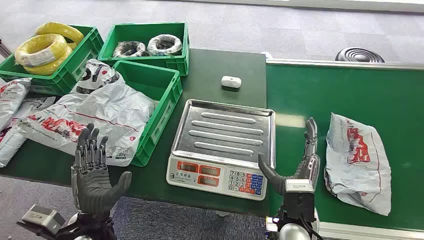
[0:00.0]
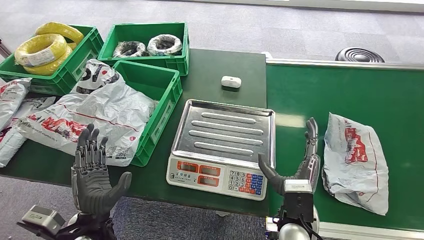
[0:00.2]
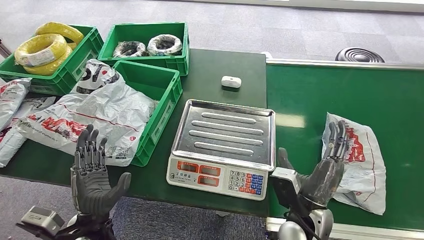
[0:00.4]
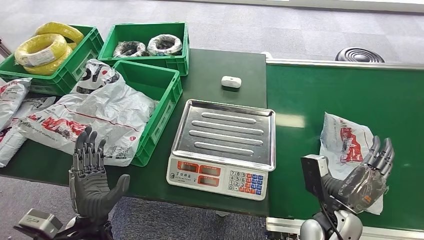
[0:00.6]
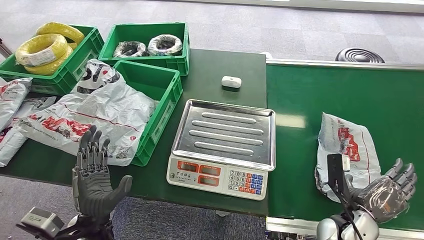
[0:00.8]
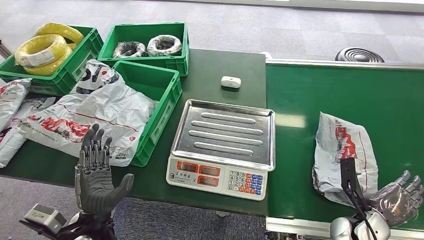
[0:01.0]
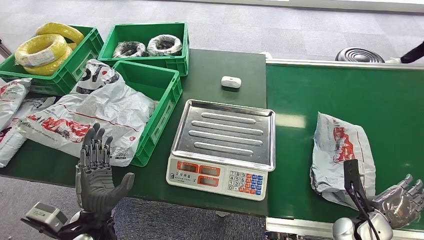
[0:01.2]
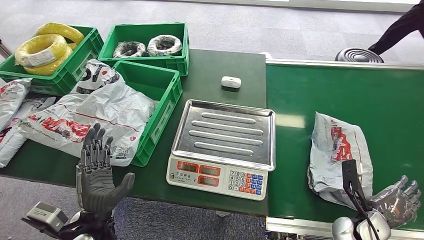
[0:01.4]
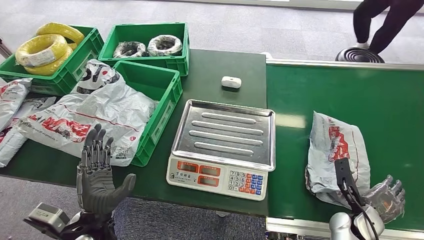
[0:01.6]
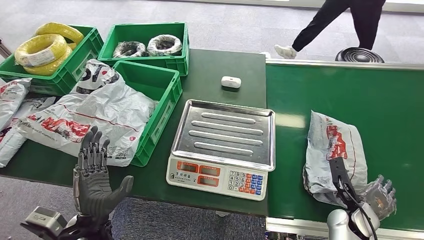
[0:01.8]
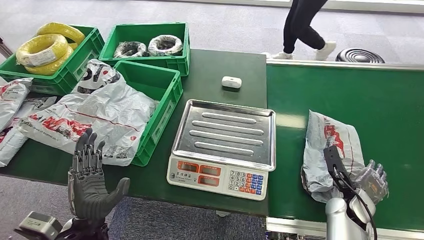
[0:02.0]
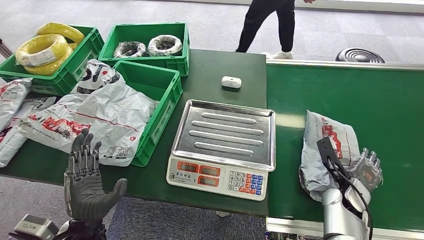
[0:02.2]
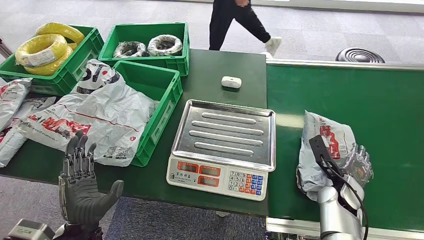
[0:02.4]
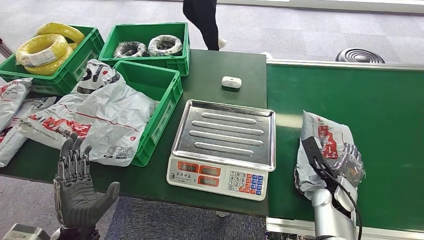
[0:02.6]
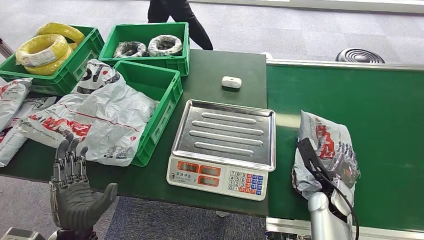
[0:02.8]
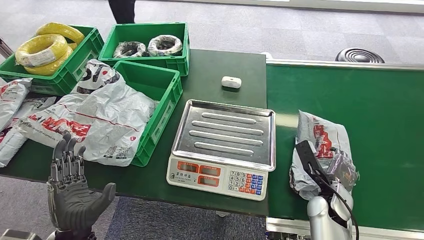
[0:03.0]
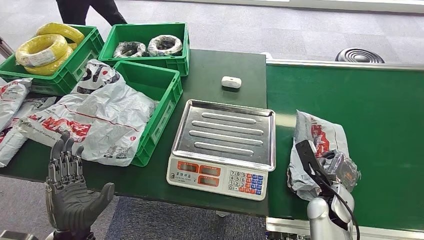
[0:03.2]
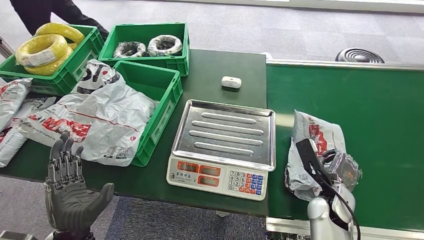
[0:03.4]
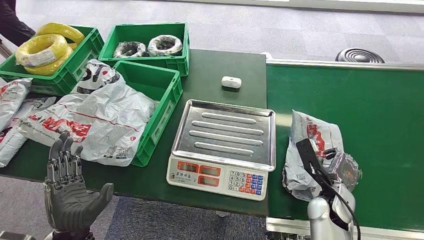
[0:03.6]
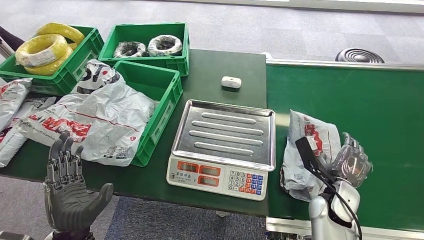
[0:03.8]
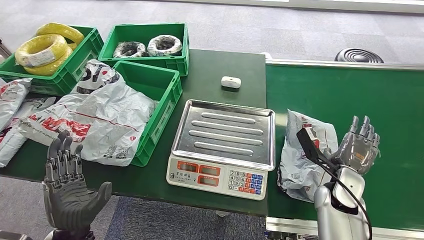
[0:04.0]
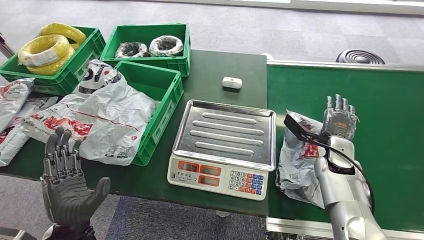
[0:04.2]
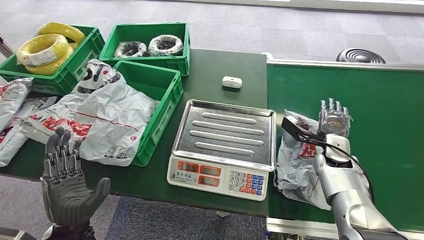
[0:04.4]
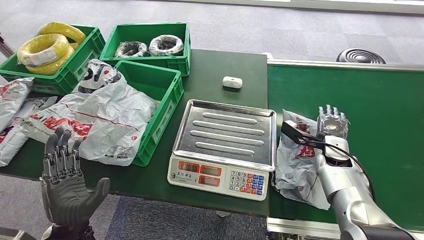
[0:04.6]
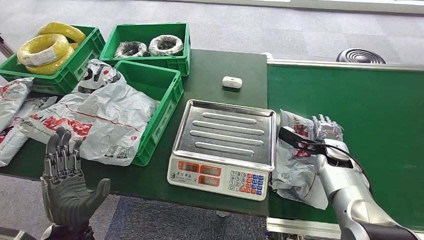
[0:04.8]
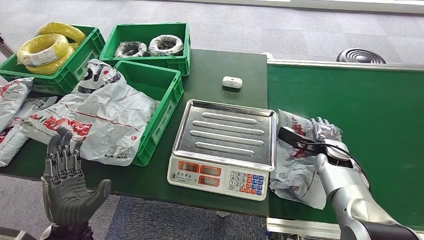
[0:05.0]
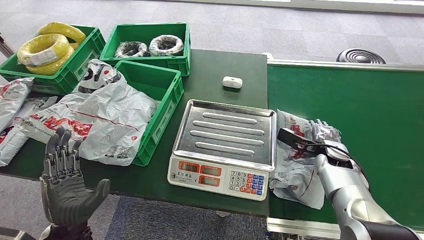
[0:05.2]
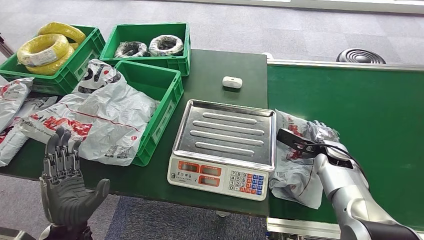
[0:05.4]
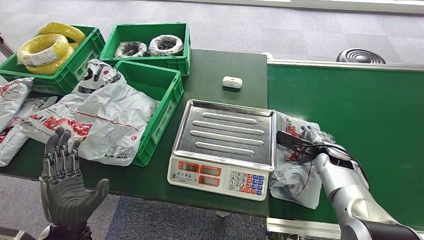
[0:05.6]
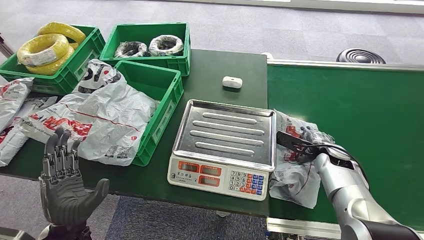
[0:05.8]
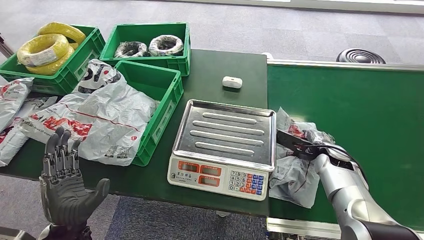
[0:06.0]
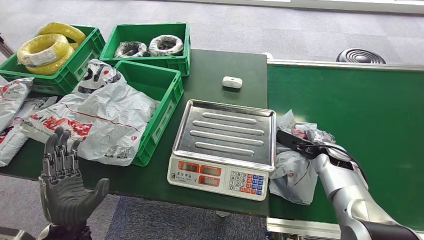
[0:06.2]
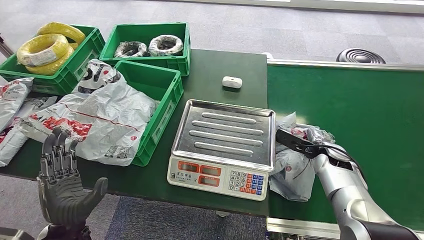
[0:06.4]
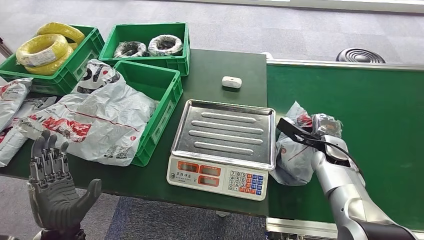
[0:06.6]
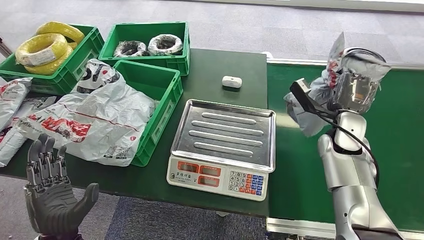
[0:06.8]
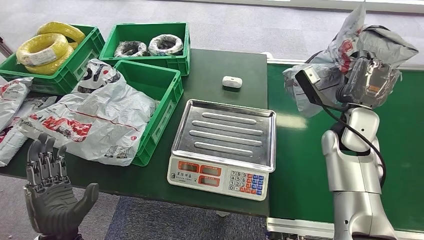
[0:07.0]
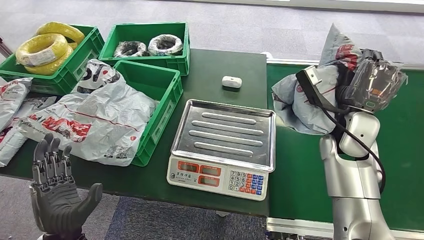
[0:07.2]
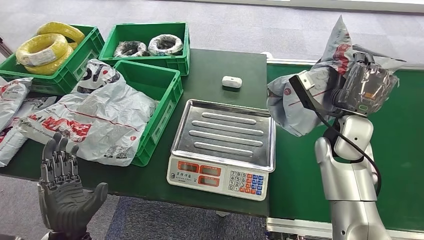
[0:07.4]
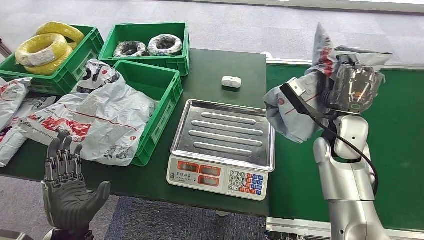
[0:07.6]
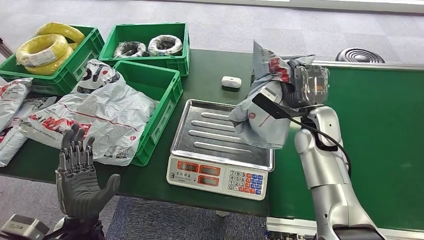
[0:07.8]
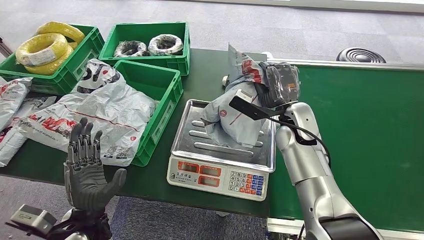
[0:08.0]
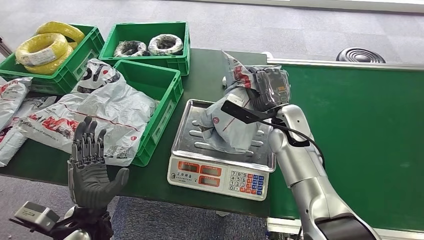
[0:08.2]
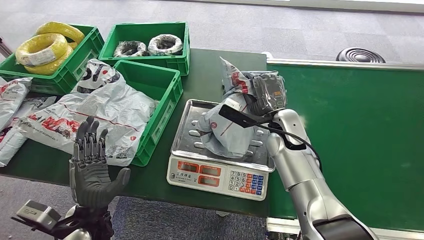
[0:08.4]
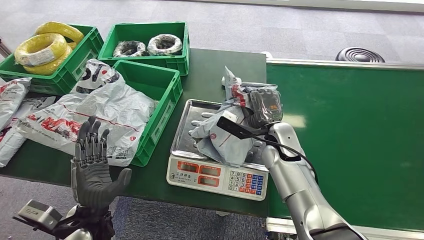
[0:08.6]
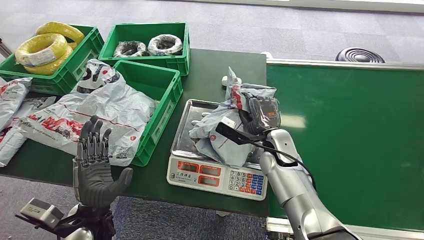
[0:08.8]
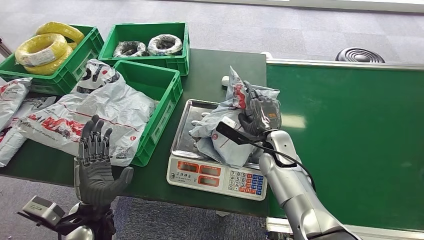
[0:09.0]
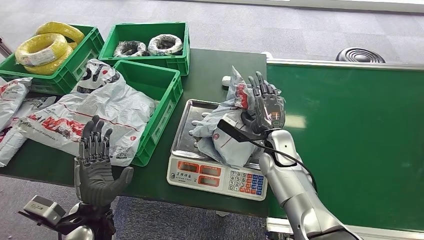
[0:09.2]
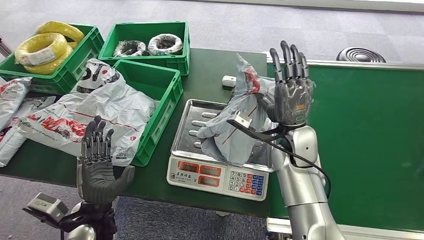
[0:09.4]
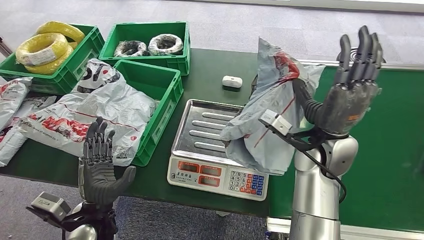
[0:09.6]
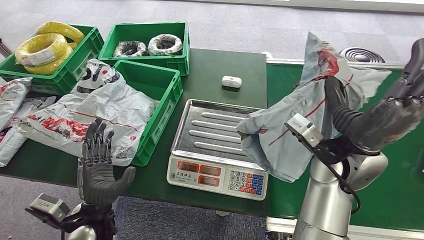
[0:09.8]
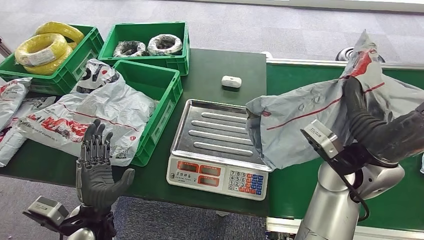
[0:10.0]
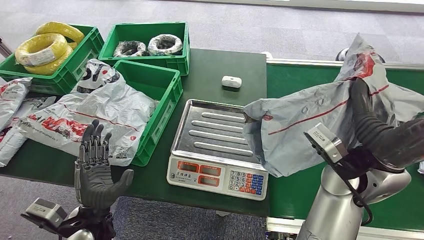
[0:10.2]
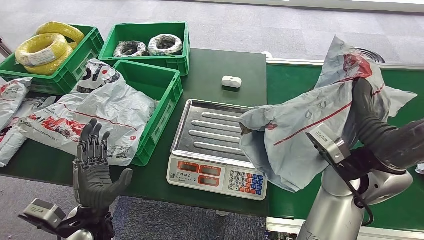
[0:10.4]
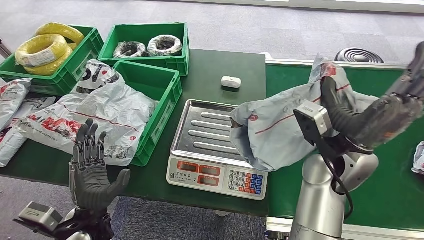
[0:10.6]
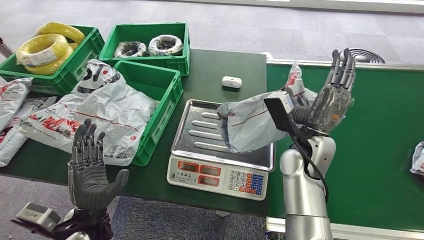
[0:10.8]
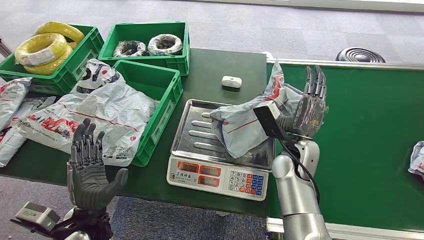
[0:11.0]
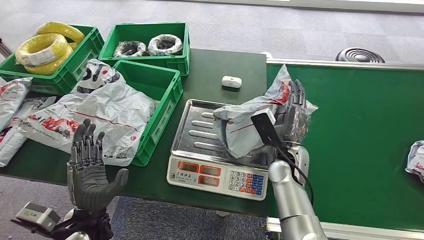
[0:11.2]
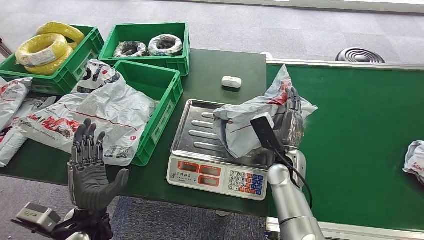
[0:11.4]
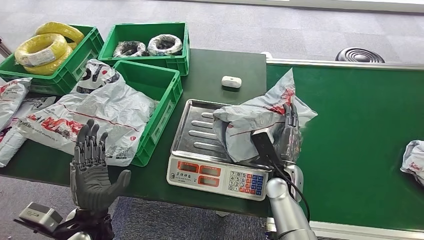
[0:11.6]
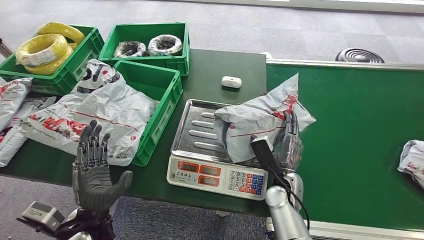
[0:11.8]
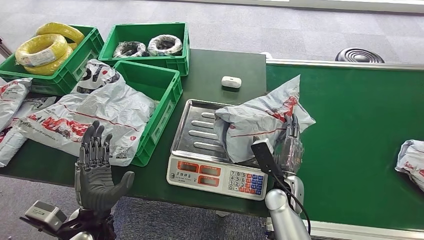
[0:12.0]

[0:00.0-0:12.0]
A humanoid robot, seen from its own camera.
Step, 0:00.0 to 0:06.8: Pick up the package from the conveyor belt.
0:01.6 to 0:03.0: The right hand moves to the left, roughly 5 cm.
0:03.0 to 0:04.4: The right hand is displaced forward and upward by some 10 cm.

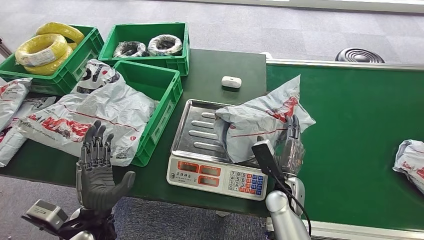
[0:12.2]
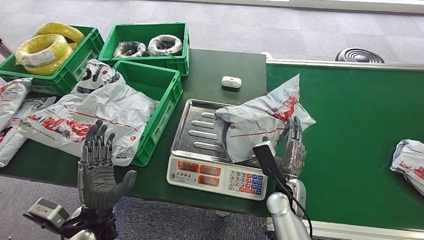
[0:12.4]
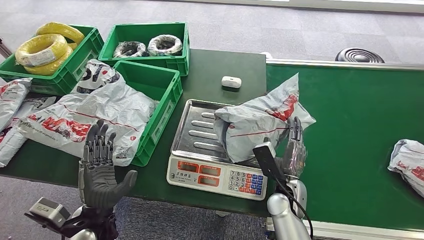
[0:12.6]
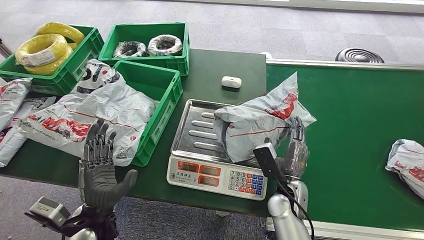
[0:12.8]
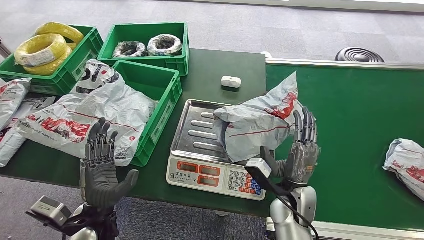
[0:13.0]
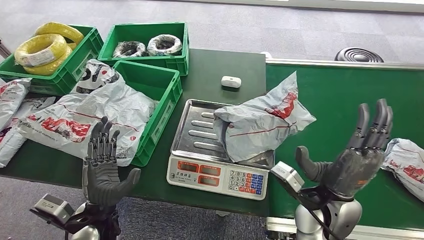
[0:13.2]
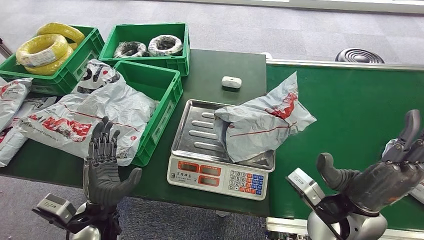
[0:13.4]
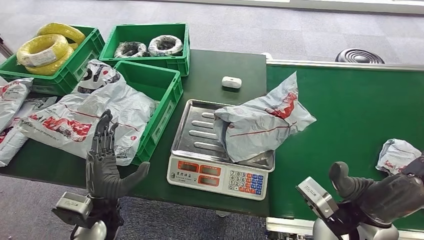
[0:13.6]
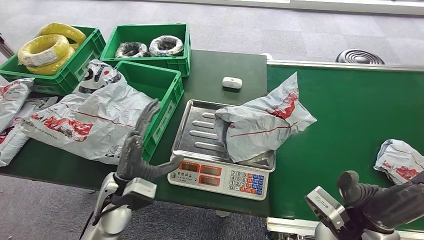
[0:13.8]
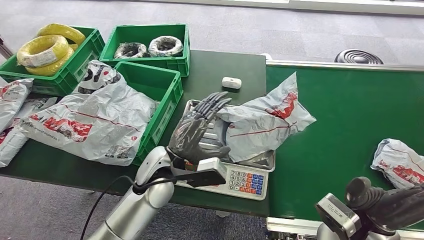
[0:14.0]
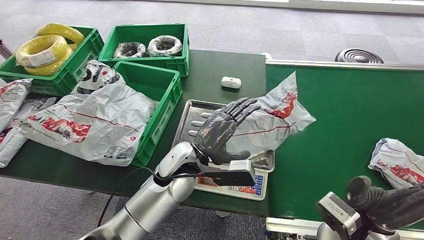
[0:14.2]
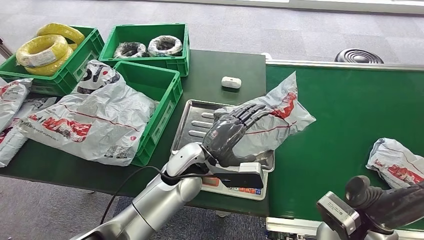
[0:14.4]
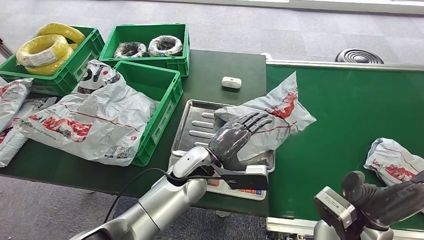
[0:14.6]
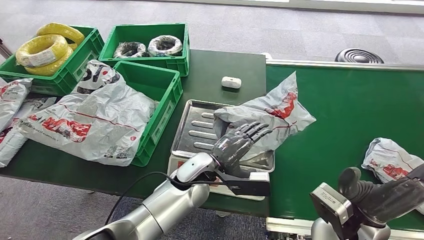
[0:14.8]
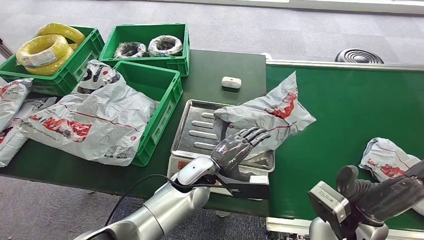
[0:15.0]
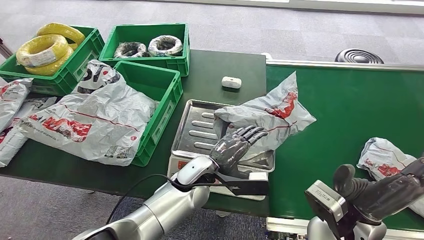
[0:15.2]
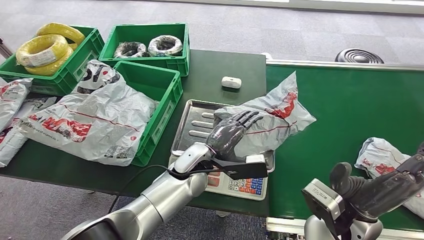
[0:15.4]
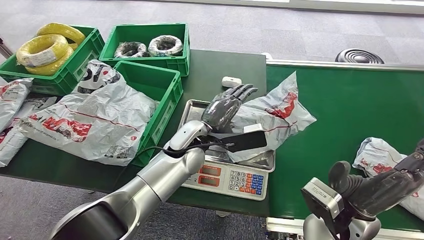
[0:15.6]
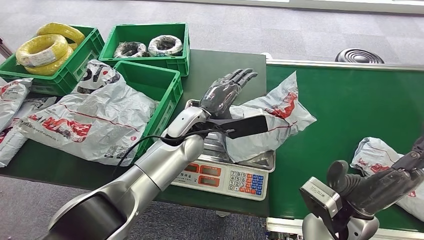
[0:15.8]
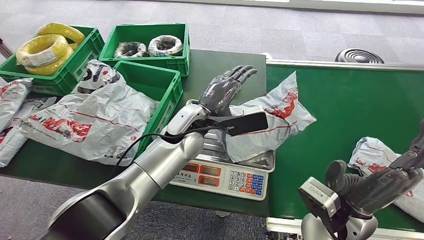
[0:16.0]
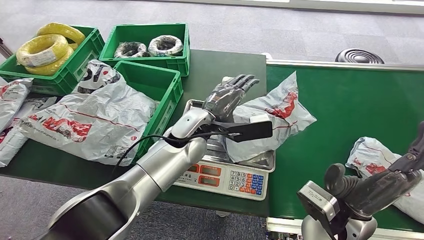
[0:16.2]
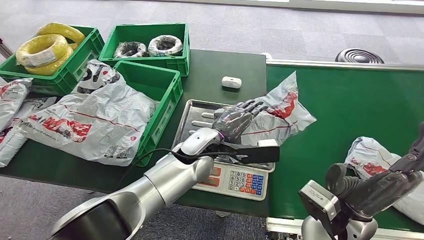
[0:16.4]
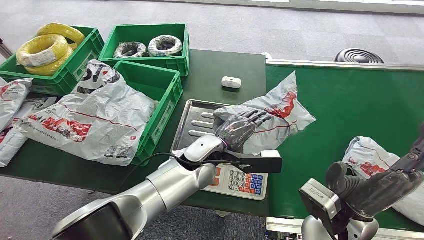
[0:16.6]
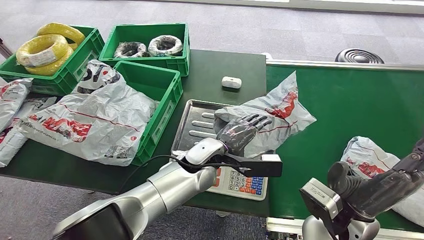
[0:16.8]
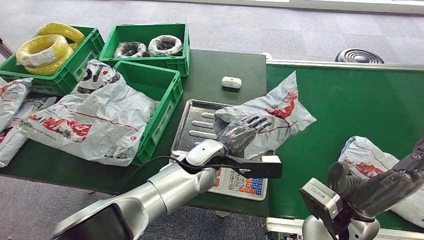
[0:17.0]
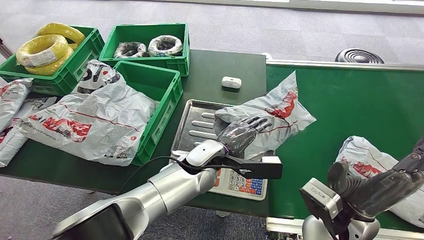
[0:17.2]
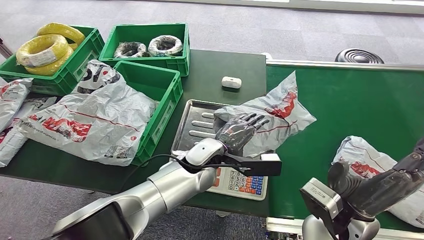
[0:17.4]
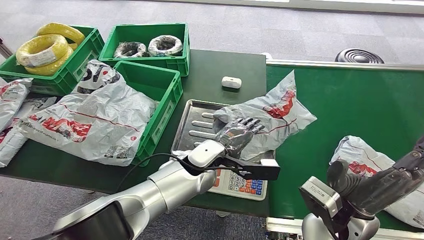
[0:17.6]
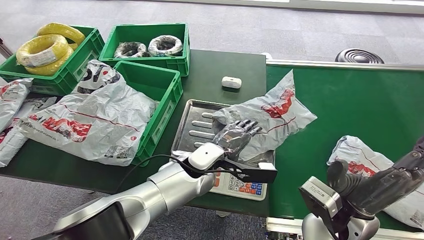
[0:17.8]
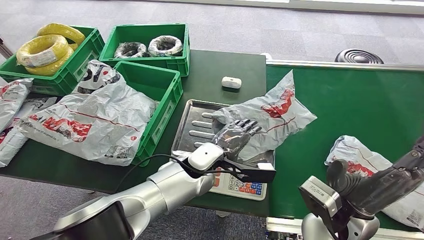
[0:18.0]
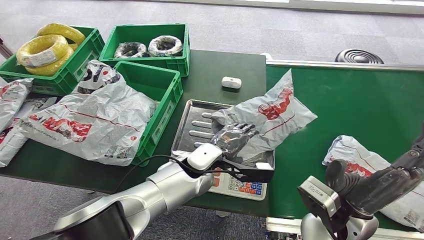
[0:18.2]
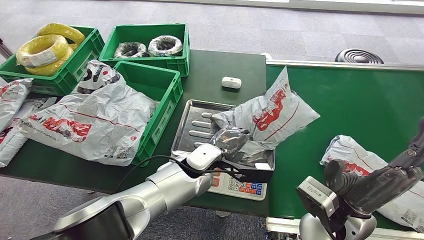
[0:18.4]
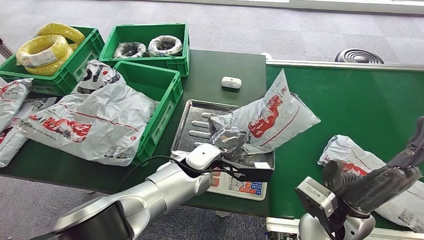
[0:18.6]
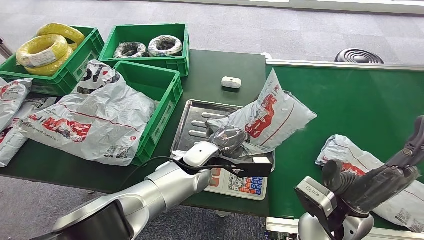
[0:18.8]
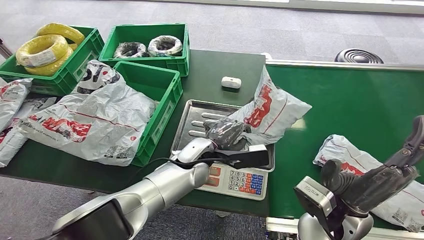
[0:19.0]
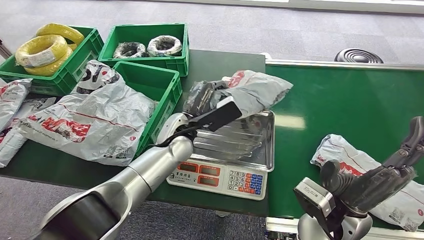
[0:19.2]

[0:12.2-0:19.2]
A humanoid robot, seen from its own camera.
0:12.2 to 0:13.6: The right hand shifts some 20 cm upward and backward.
0:13.6 to 0:15.0: The left hand travels to the right and forward by roughly 20 cm.
0:15.0 to 0:16.4: The left hand shifts roughly 5 cm upward.
0:16.4 to 0:17.8: The hands stay close to where they were, moving slightly.
